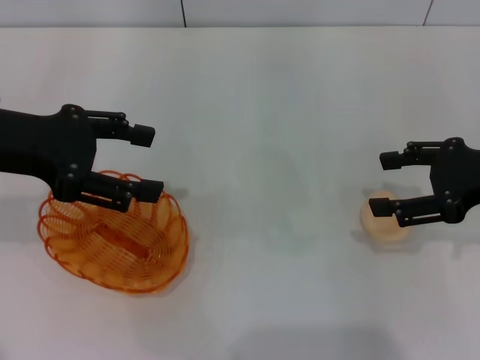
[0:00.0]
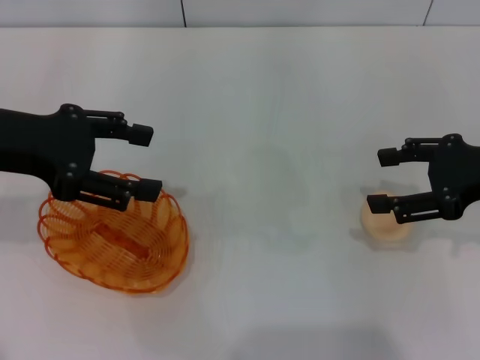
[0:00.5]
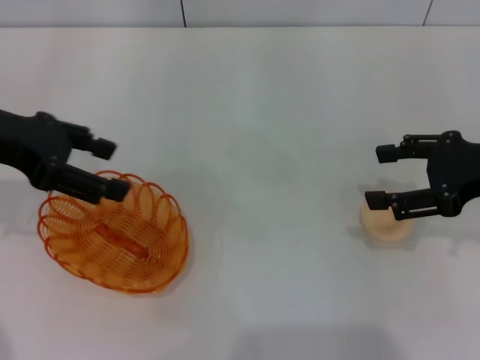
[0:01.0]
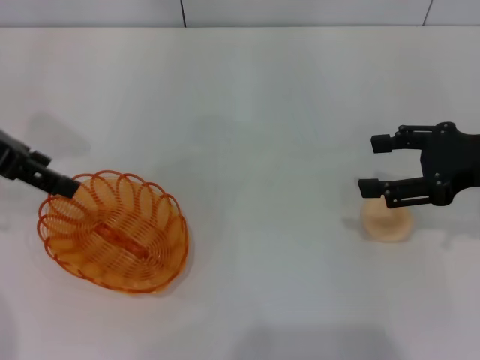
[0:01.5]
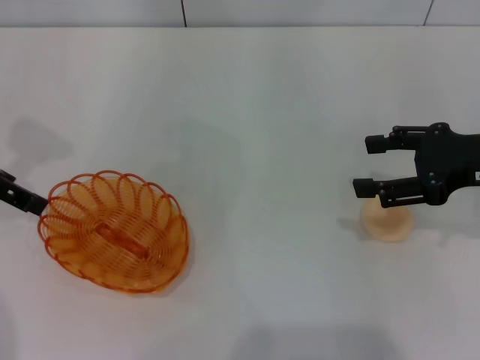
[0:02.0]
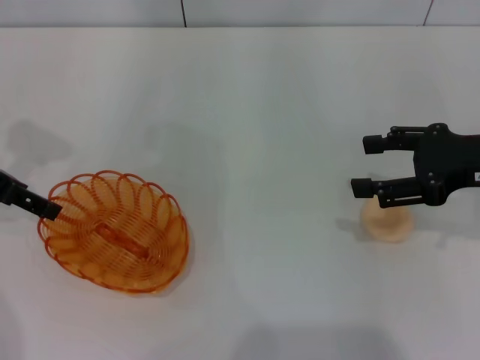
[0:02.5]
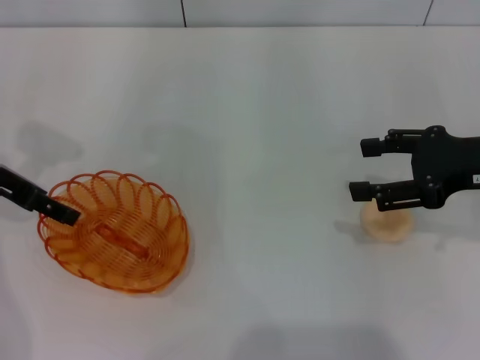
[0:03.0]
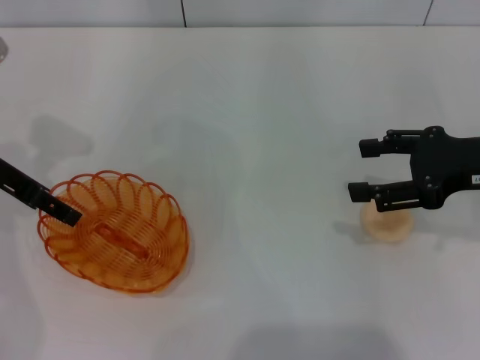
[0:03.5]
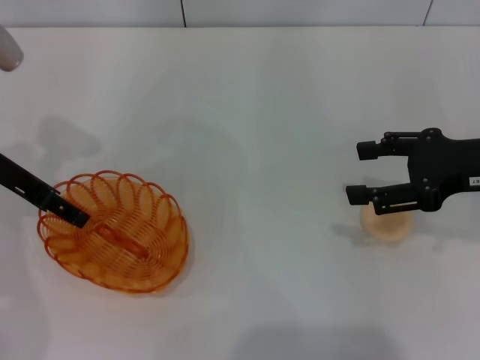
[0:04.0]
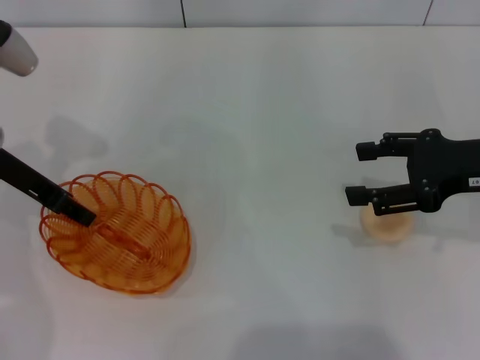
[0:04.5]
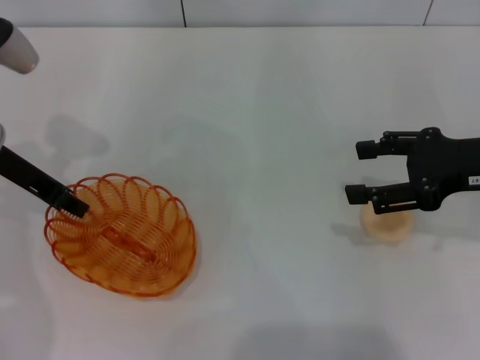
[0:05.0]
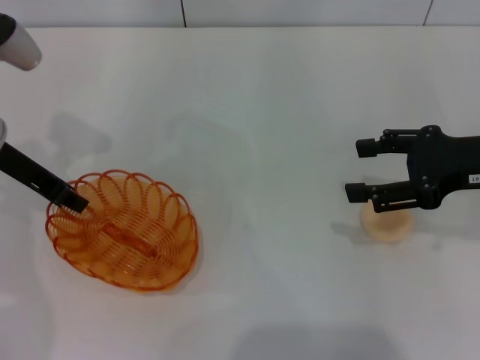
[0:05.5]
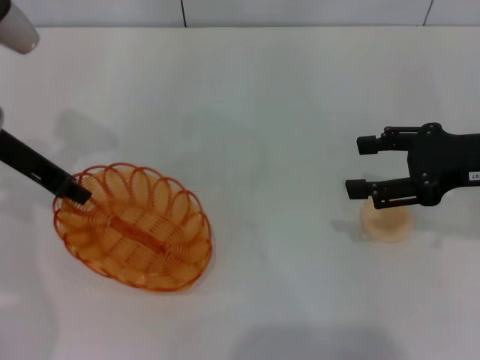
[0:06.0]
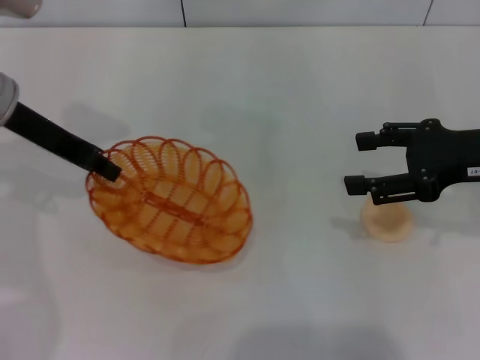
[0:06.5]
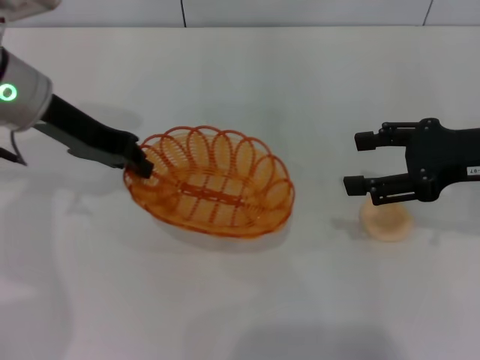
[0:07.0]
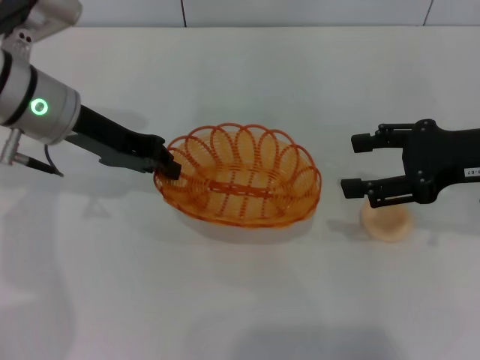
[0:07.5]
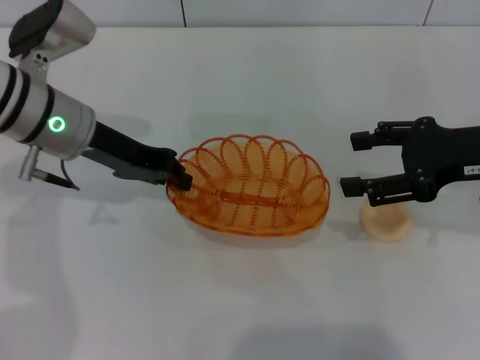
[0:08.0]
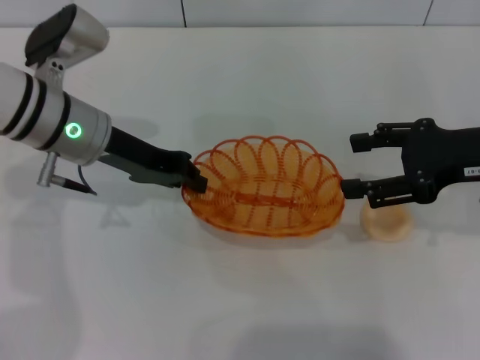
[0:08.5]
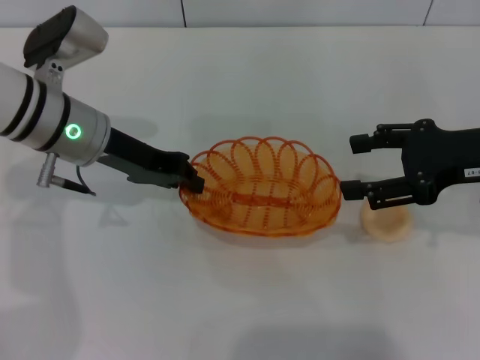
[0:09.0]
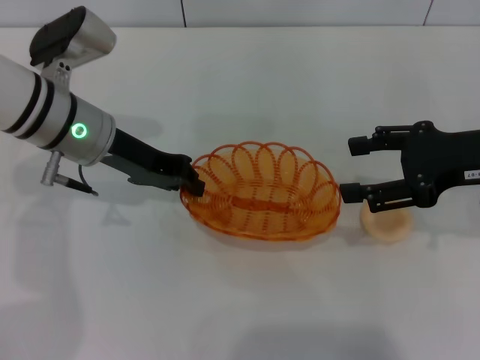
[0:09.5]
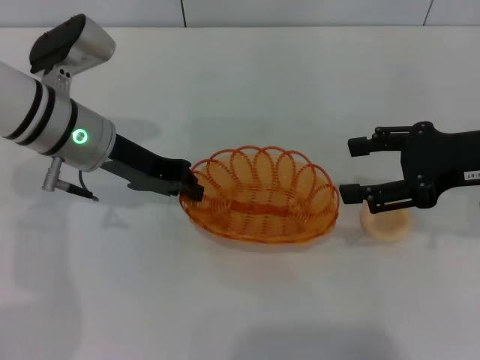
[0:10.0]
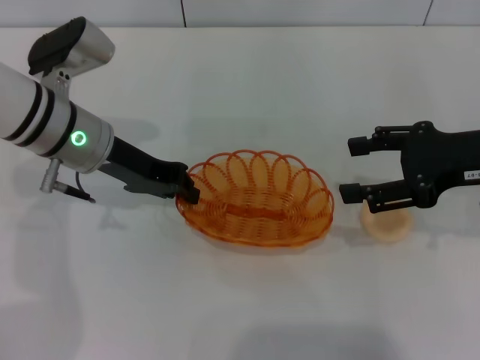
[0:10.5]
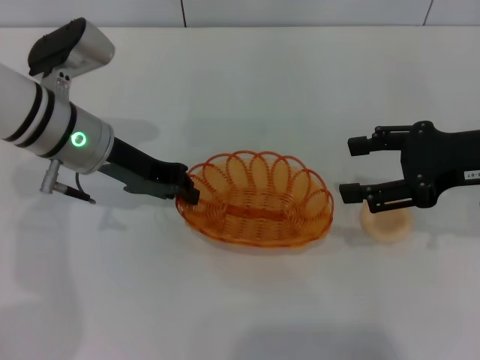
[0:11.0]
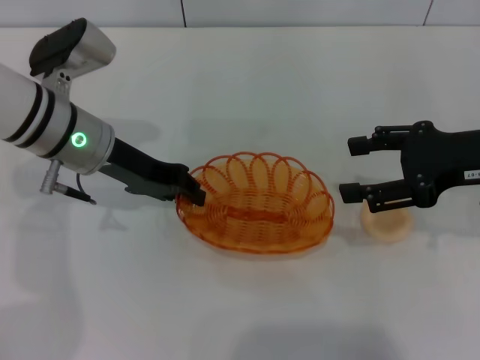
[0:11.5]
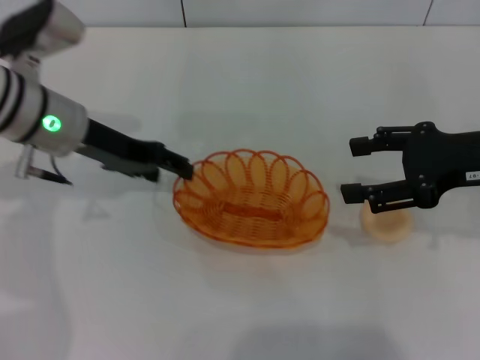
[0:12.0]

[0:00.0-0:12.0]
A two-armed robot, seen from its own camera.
Step, 0:00.0 to 0:06.5: Pick up the basket with the left gripper.
0:00.0 to 0:02.0: The left gripper changes place by approximately 5 cm.
0:02.0 to 0:04.0: The left gripper heads downward, covering about 5 cm.
0:04.0 to 0:06.0: The left gripper closes.
0:06.0 to 0:08.0: The left gripper moves to the right, roughly 5 cm.
0:08.0 to 0:10.0: The grippers move only a little.
0:10.0 to 0:12.0: The left gripper opens its fingers.

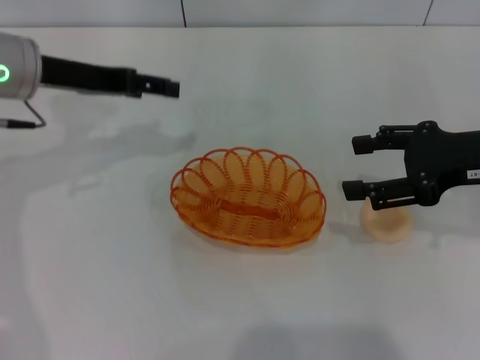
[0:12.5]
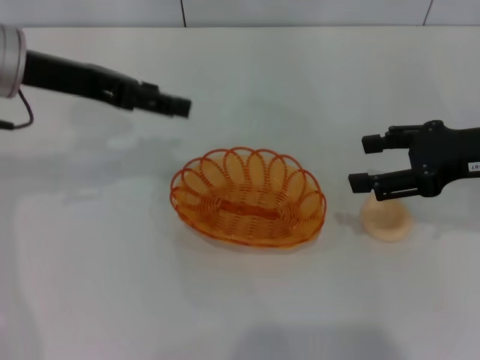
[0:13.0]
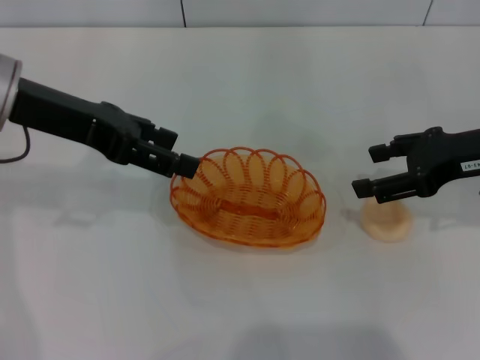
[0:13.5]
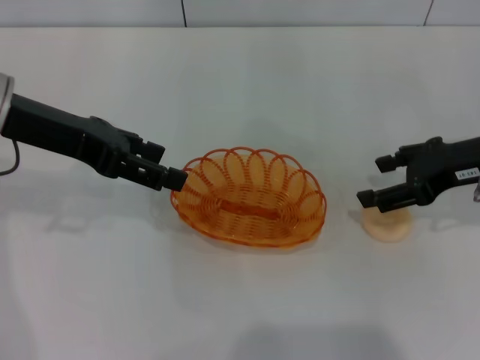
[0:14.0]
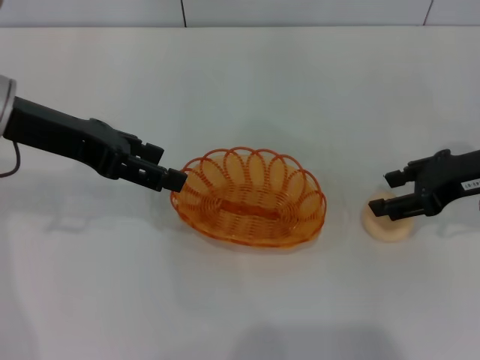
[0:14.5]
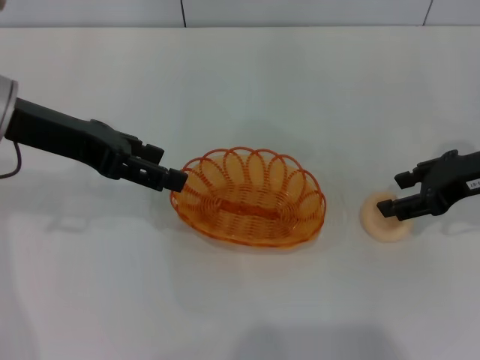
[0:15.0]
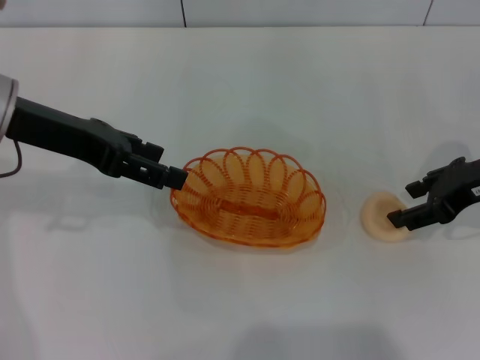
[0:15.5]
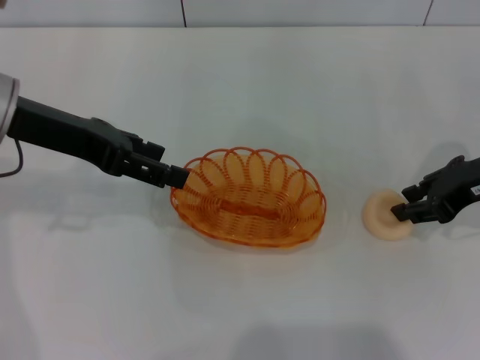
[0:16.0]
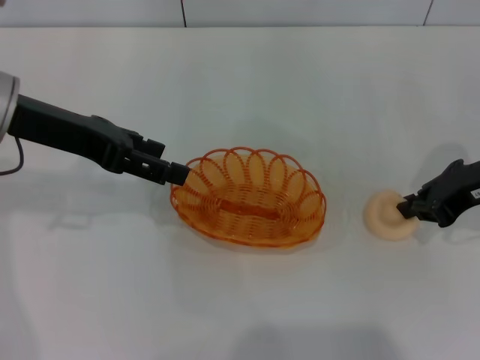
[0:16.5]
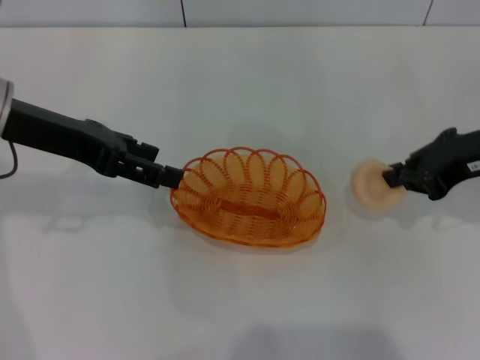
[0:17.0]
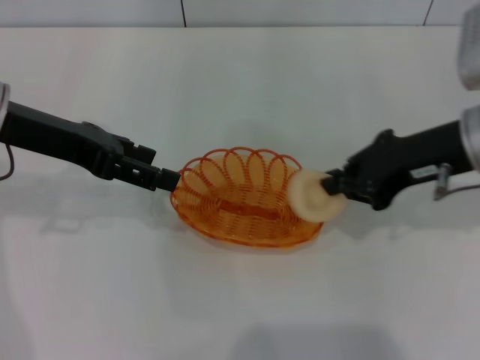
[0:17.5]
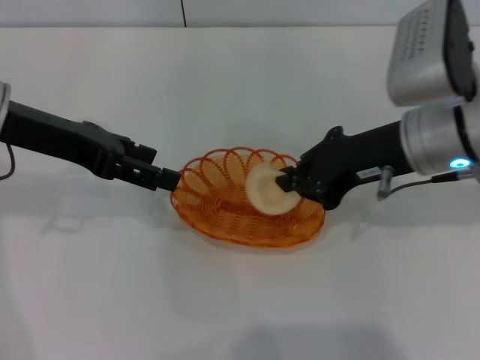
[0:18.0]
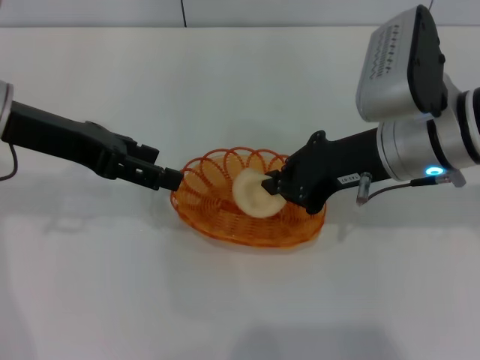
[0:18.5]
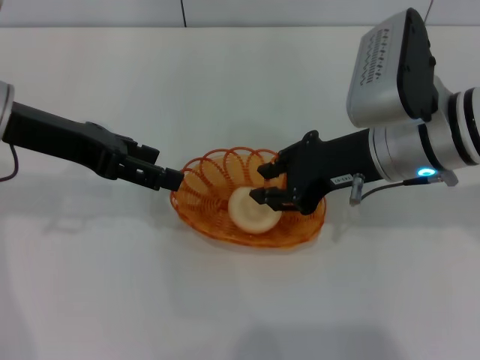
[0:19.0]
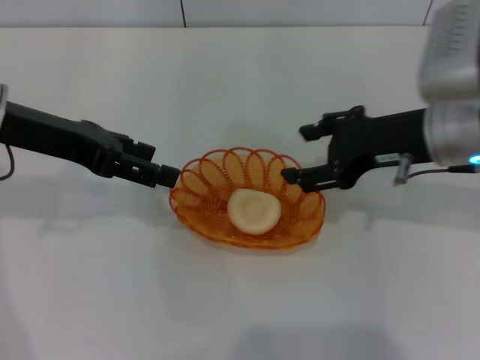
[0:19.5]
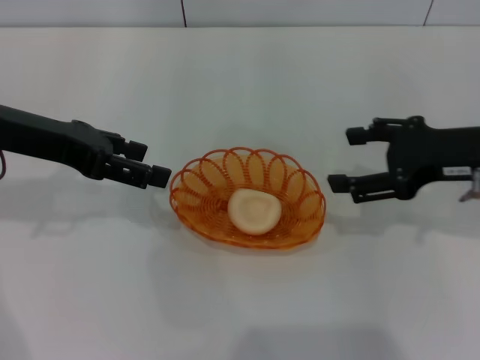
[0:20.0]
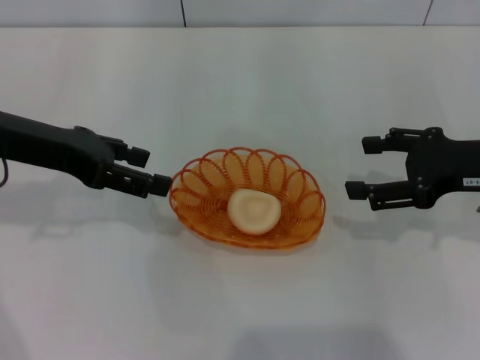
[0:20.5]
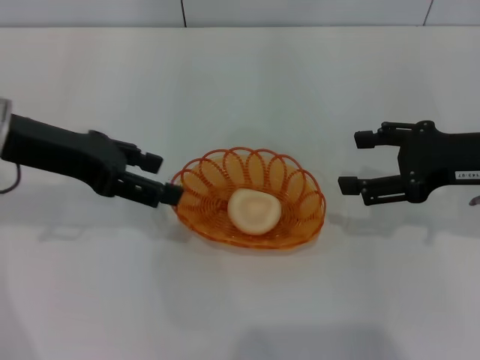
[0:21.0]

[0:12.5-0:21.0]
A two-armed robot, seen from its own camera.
Step, 0:12.5 to 0:16.5: Pick up the egg yolk pastry with the right gripper.
Step, 0:17.5 to 0:19.5: Place the egg yolk pastry into the basket with the right gripper.
0:12.5 to 0:14.5: The left gripper moves approximately 5 cm.
0:14.5 to 0:16.5: The right gripper closes.
0:16.5 to 0:19.0: The right gripper goes some 10 cm to the left.
0:19.0 to 0:21.0: The right gripper heads to the right, covering some 10 cm, and opens its fingers.
